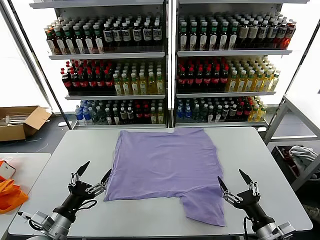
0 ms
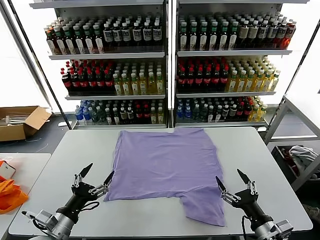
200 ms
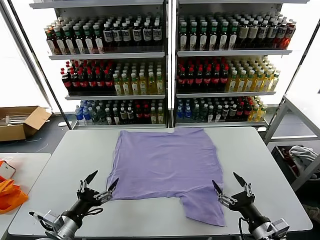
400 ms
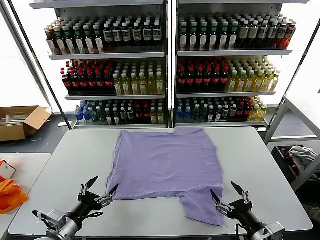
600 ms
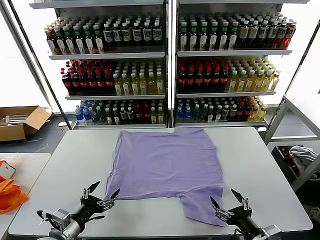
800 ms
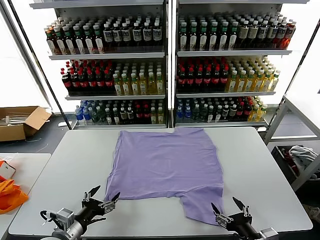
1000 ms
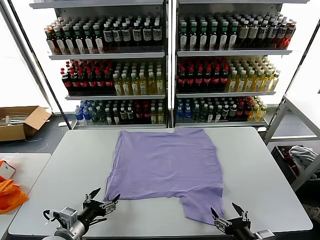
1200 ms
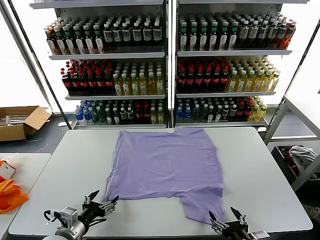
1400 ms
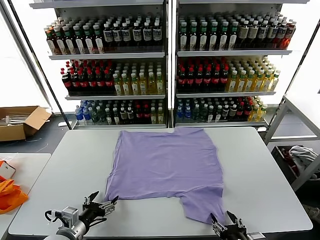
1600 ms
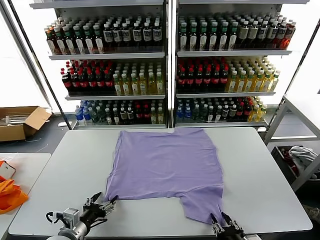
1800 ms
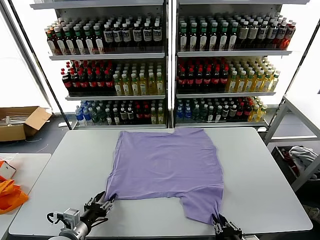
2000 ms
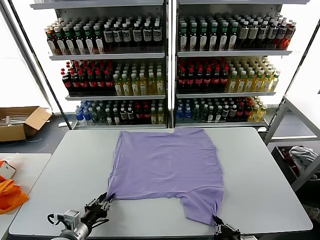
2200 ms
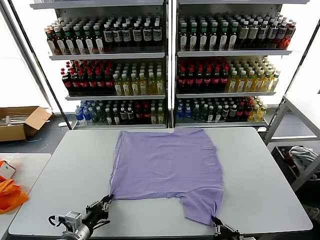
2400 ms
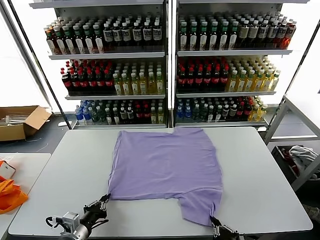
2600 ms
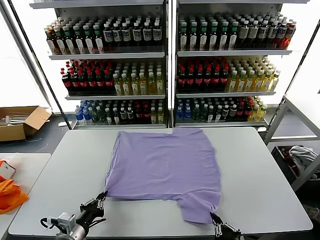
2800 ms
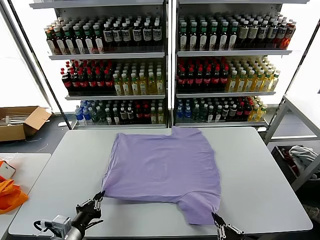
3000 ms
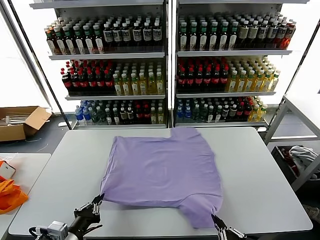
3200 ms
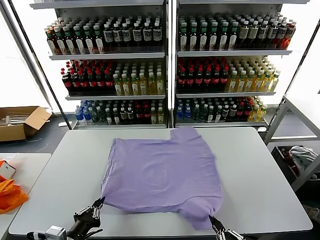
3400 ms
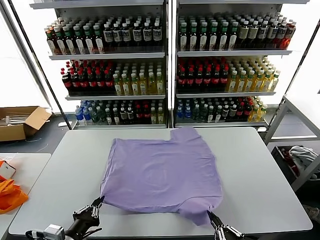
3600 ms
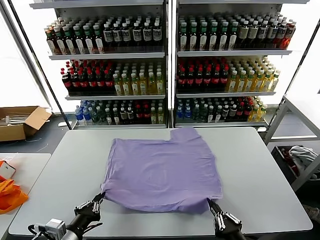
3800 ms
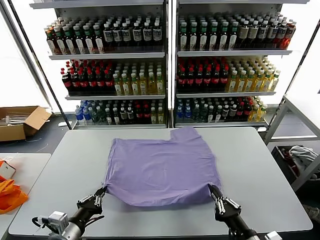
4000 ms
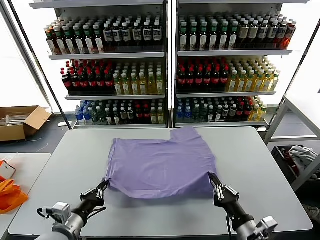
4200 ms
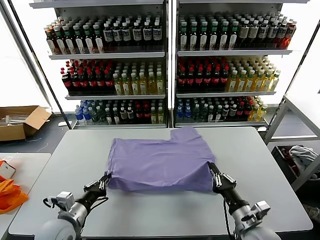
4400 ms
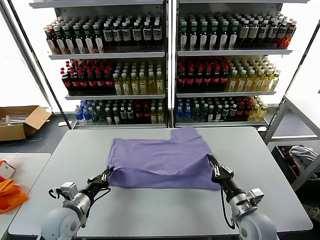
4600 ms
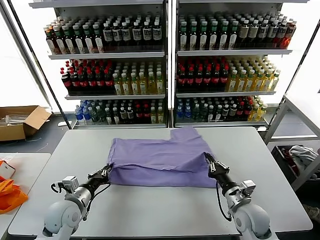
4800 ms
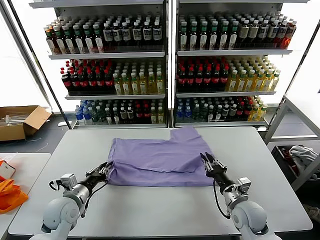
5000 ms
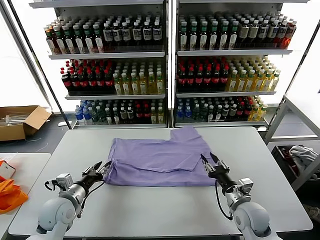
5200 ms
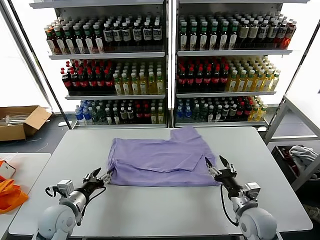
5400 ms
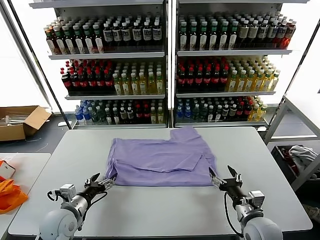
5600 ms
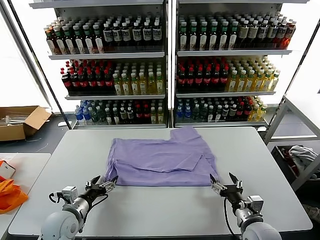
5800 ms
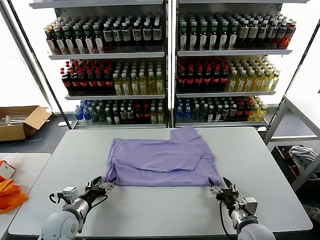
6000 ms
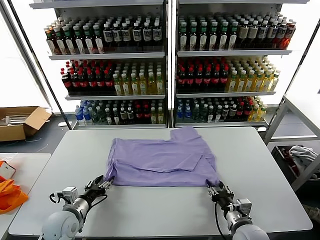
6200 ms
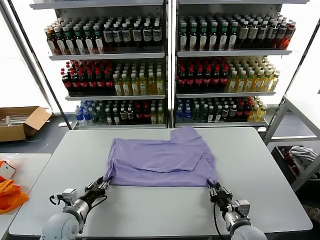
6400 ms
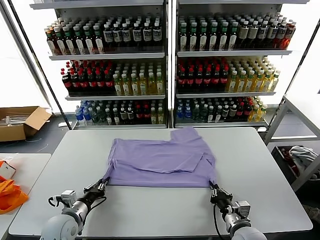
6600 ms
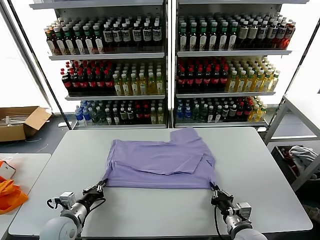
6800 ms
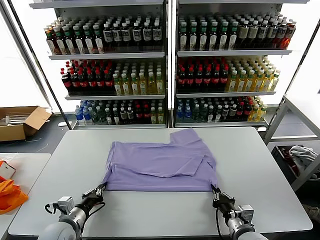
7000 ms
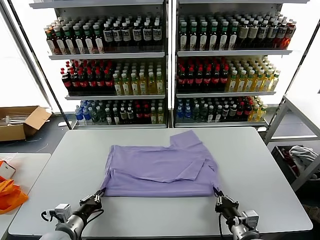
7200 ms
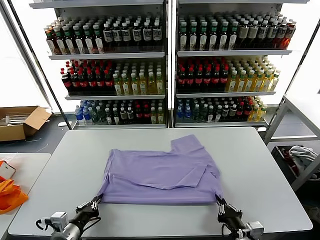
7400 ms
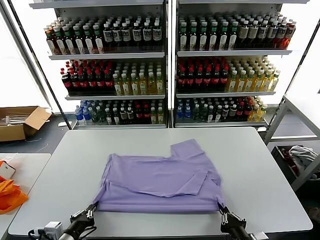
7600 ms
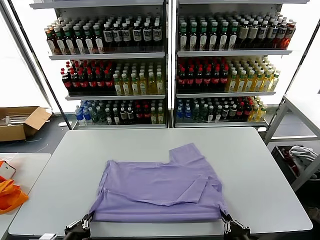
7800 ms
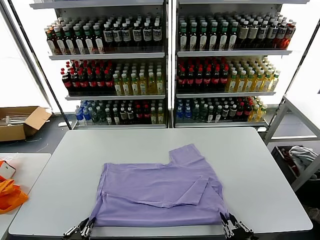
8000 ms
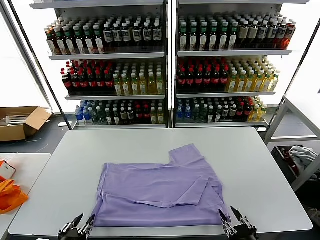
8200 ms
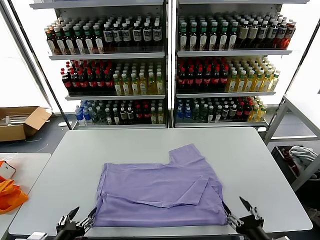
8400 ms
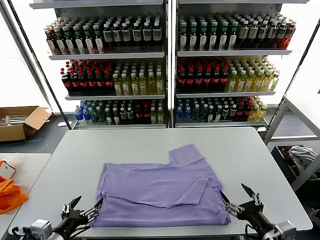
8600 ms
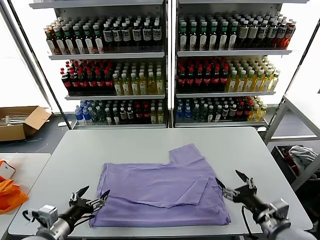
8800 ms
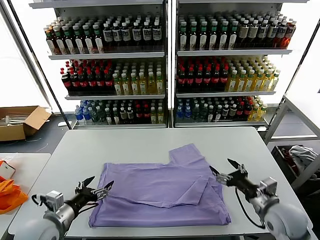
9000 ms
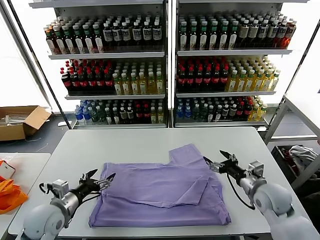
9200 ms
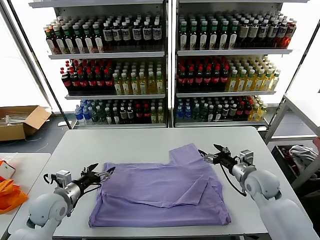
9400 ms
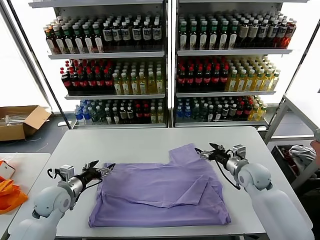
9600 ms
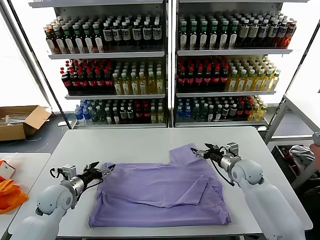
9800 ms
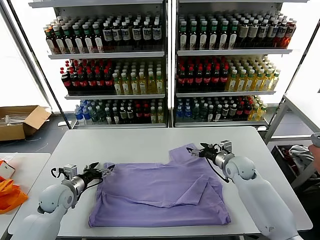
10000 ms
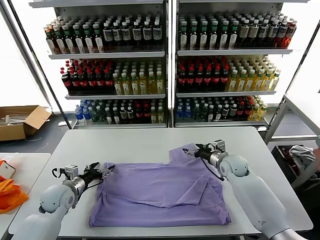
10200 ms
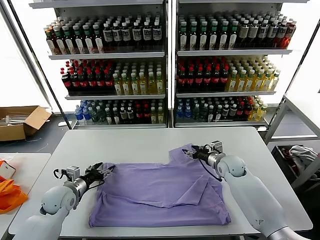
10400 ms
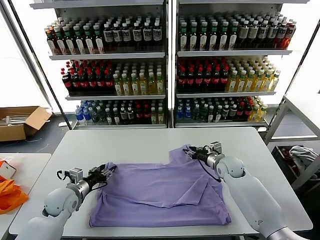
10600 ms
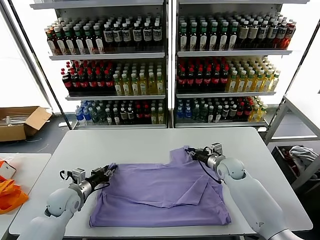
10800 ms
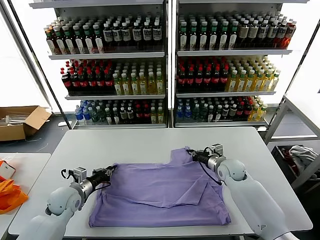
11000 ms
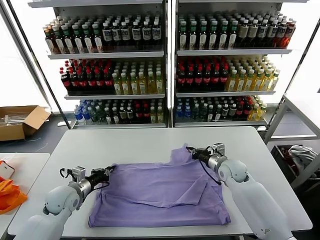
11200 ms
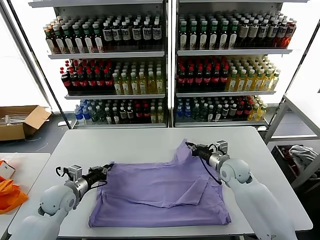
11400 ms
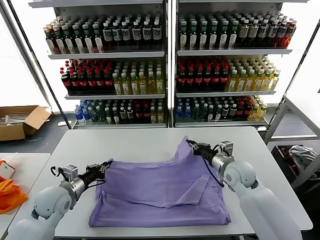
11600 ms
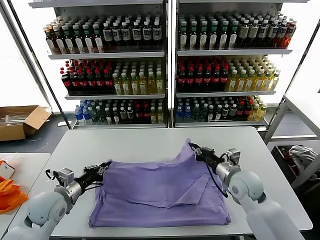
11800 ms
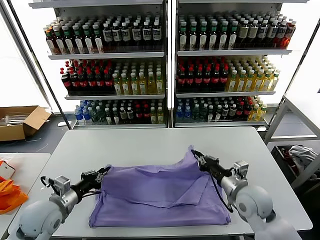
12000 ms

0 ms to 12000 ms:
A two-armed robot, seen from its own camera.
Task of the whole recording: fold and organize the clothes.
Step, 0 ms to 2600 ms: use both grippers simultaneously to clamp the lower edge of the clothing fabric.
Step, 2800 ms to 5000 ms: use both grippers to drag the lower edge of the fabric forward and fold it over the upper edge.
Step, 5200 ms to 8200 ms: Drag the clothes downward with both gripper.
Step, 8400 ms to 11200 ms: use both grippers simultaneously to clamp the upper edge of the clothing fabric.
1600 ms to 3000 ms: The left gripper shifts by about 5 cm, and closes; the right gripper is displaced backward by approximately 5 cm, and closes up.
3000 ms to 4400 ms: The right gripper shifts roughly 20 cm forward, while the left gripper travels forward by roughly 10 cm.
4400 ms to 6000 ms: The right gripper opens. The left gripper moves about 5 cm, and opens its fingers.
6000 ms to 7600 ms: The two grippers go some 15 cm backward. The left gripper closes its fingers. Meanwhile the right gripper closes its fingers.
7600 ms to 9000 ms: The left gripper goes roughly 10 cm forward and upward, and opens its fingers, while the right gripper goes some 20 cm forward, and opens up.
9000 ms to 10400 ms: The right gripper is displaced forward by approximately 20 cm, and closes its fingers. Meanwhile the left gripper shifts some 15 cm forward and downward.
10400 ms to 12000 ms: The right gripper shifts approximately 20 cm backward, and closes its fingers, while the left gripper heads backward and upward, covering approximately 10 cm, and closes up.

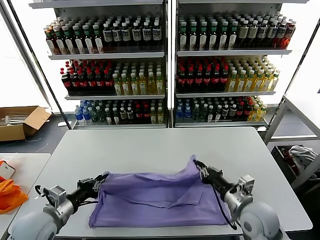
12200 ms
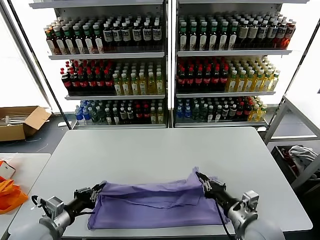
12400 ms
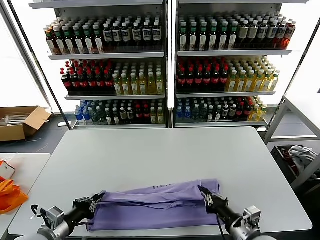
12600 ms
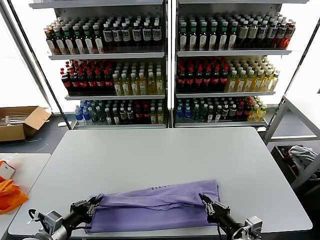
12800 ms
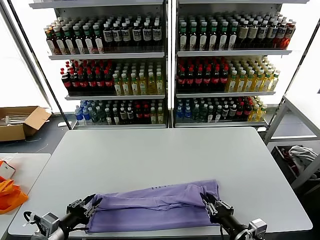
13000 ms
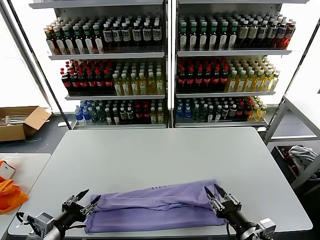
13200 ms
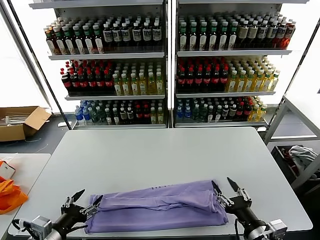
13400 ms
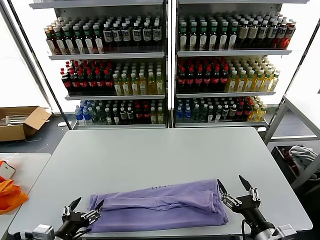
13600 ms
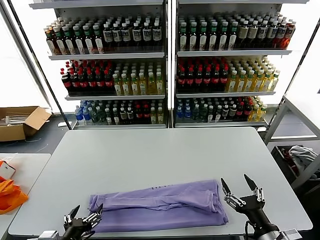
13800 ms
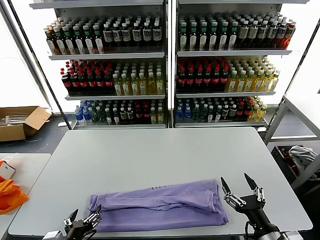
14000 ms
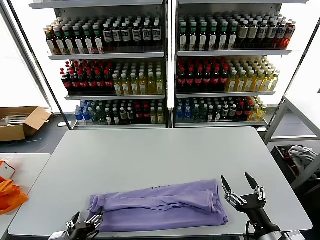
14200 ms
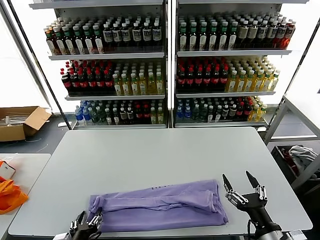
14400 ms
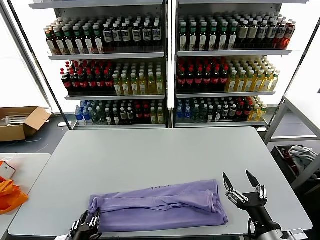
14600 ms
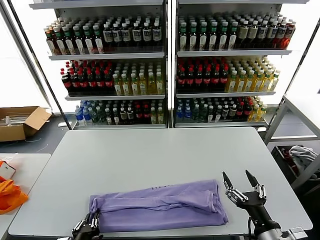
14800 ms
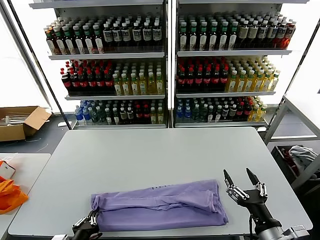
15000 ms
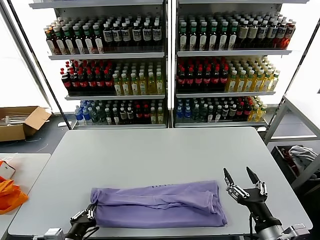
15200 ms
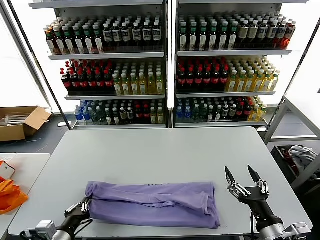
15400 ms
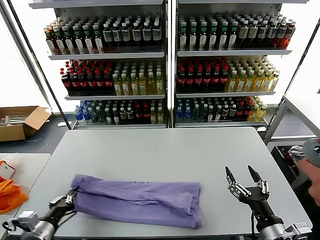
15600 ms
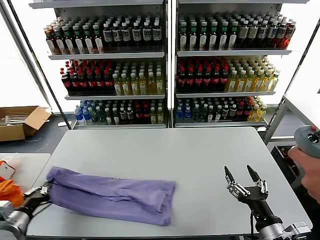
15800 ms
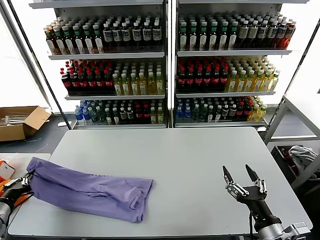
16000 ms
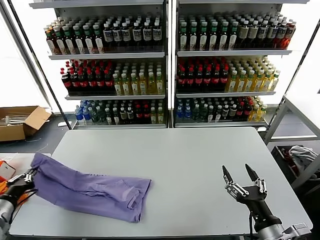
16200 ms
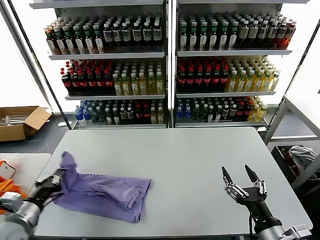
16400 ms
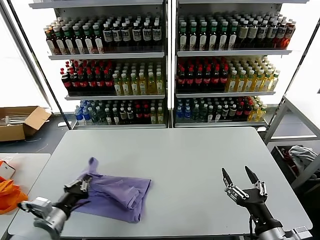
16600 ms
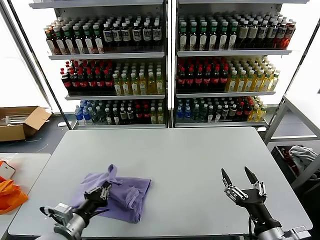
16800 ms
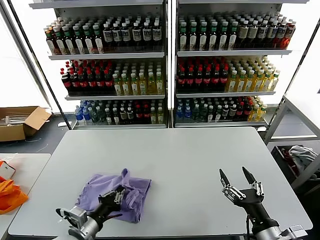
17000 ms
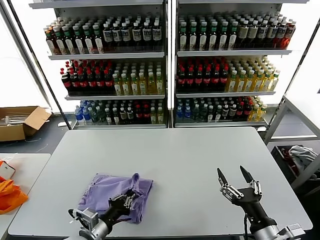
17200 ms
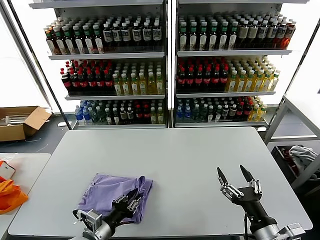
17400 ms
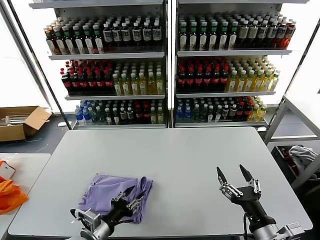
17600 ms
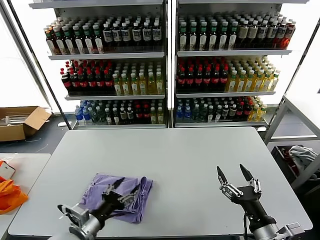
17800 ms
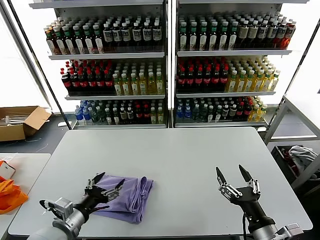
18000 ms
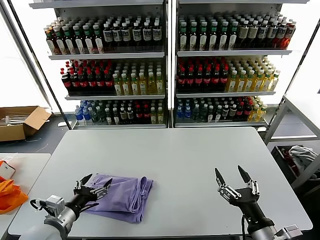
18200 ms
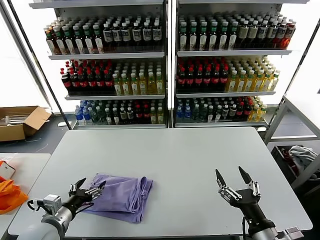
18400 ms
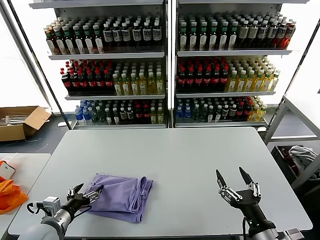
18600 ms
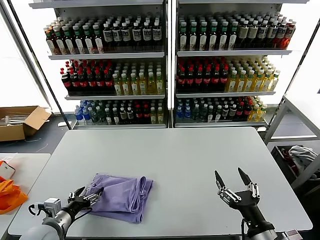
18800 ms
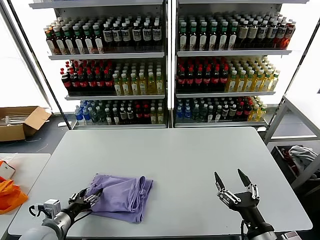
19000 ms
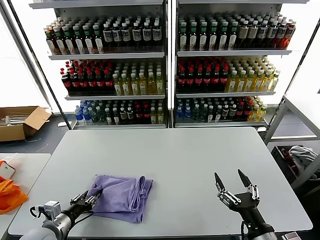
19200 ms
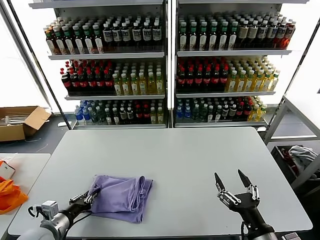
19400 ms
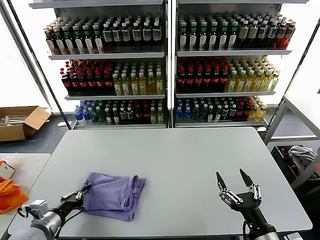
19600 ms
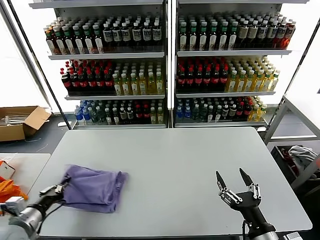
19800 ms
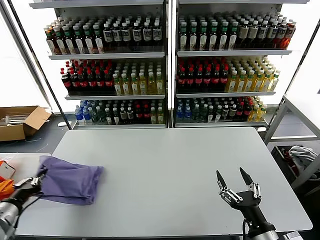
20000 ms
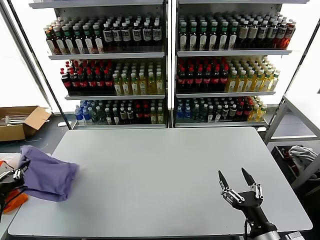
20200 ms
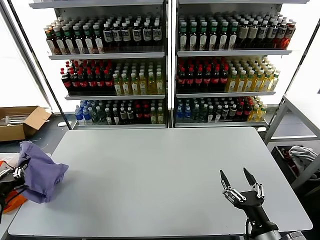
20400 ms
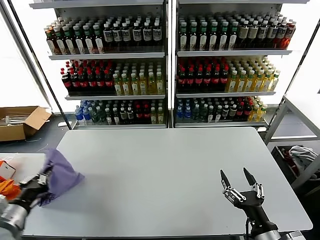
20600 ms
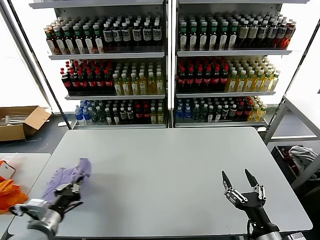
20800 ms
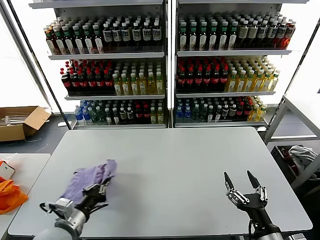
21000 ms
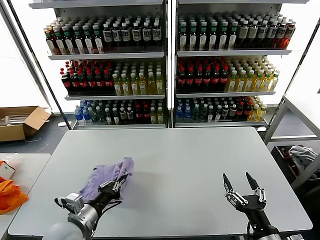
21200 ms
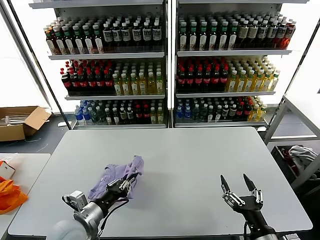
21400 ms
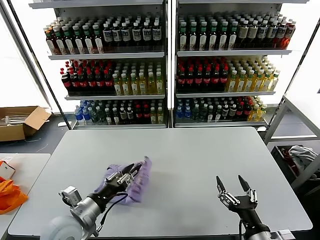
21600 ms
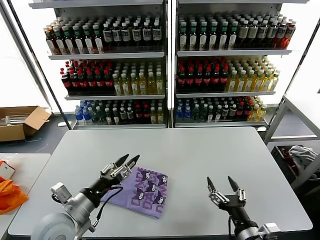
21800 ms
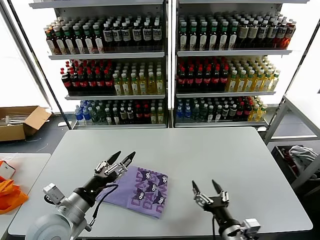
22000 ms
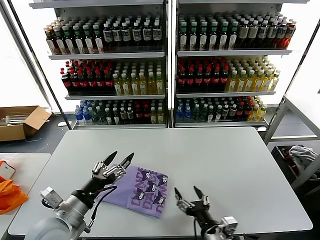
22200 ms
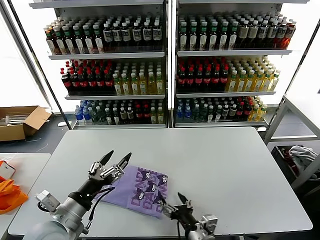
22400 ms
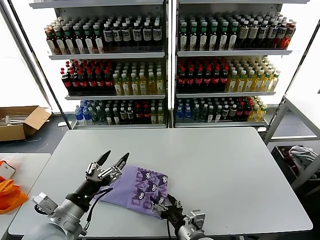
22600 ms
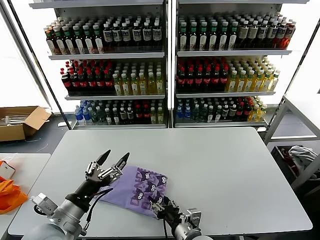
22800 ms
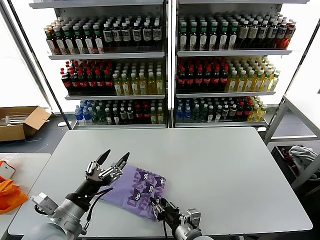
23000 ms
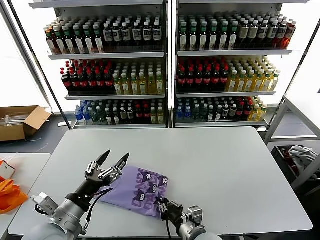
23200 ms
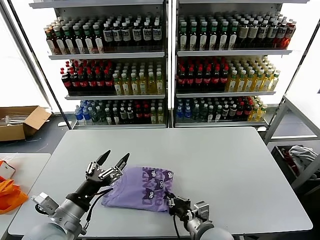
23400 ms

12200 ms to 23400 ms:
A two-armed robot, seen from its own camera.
Task of the whole recording: fold and organize the clothes.
Step, 12200 ms to 13200 ms: use both grippers to drag the upper edge of the fabric backward and fold it over the lower edge.
Step, 13400 ms to 15000 ms: use the left gripper to clamp the left edge of the fabric.
Step, 15200 ms to 17600 ms: use the left gripper to drag the left edge of the fabric to the left and folds it over the right edge.
Step, 17800 ms to 21600 ms: Flip the folded clothes over with left gripper.
12200 ms to 13800 ms: The left gripper moves backward and to the right, roughly 15 cm, and opens. Meanwhile the right gripper travels backward by roughly 10 cm, and opens up.
13800 ms to 15400 ms: The left gripper changes place by approximately 5 cm, and closes up.
15400 ms to 17000 ms: The left gripper goes to the left and returns, roughly 20 cm each way.
17000 ms to 18600 ms: The left gripper shifts some 10 cm to the left, and opens up.
18600 ms to 20200 ms: The left gripper heads to the left and upward, covering some 15 cm, and closes up.
20200 ms to 21800 ms: The left gripper goes roughly 20 cm to the right, and opens up.
21800 ms to 23400 ms: The right gripper travels to the left and forward by about 15 cm, and closes its fingers. The left gripper opens.
